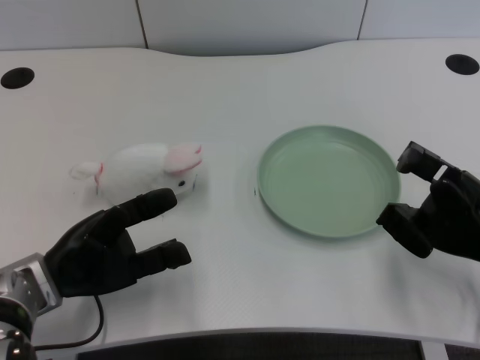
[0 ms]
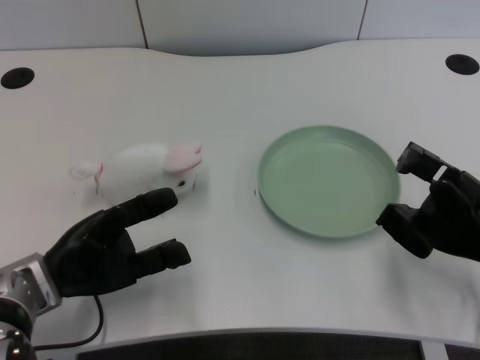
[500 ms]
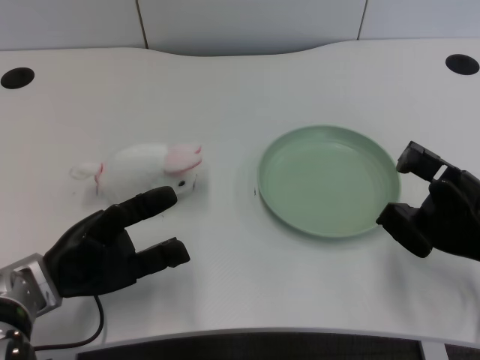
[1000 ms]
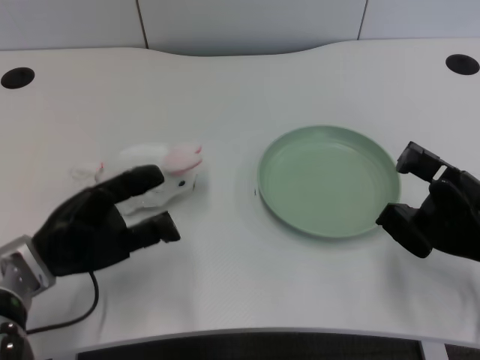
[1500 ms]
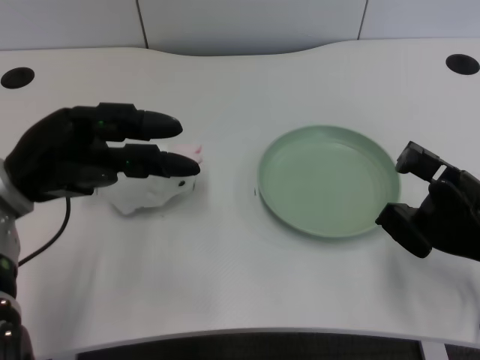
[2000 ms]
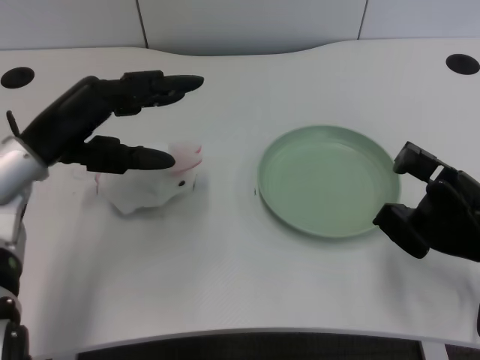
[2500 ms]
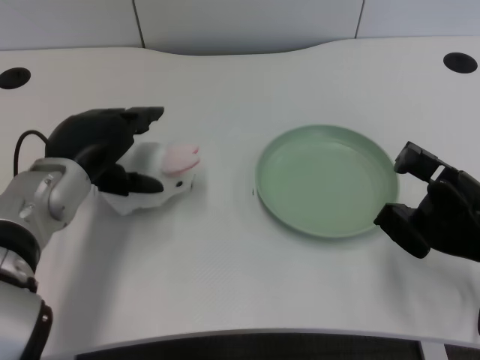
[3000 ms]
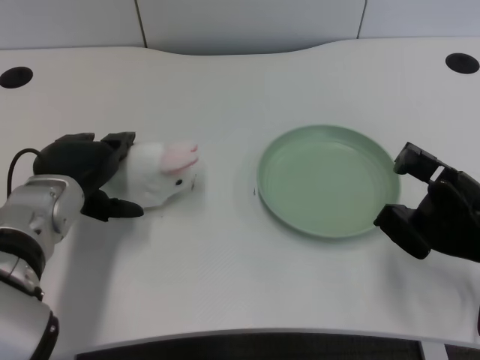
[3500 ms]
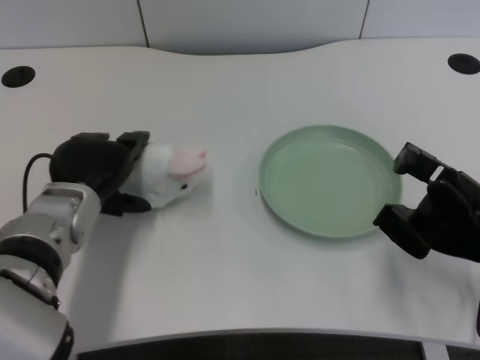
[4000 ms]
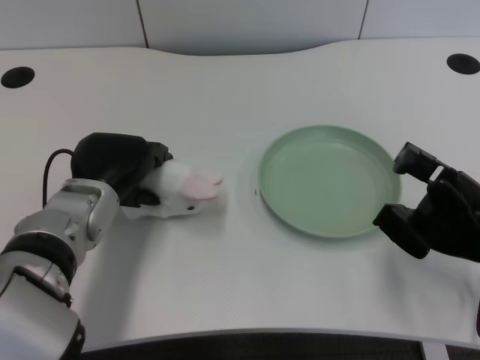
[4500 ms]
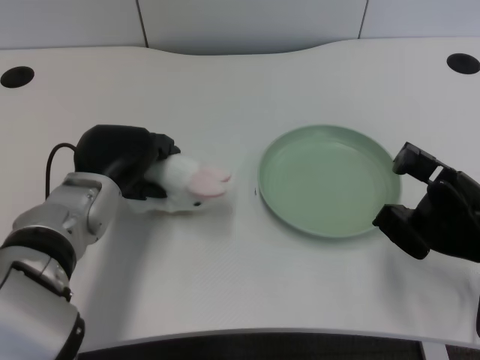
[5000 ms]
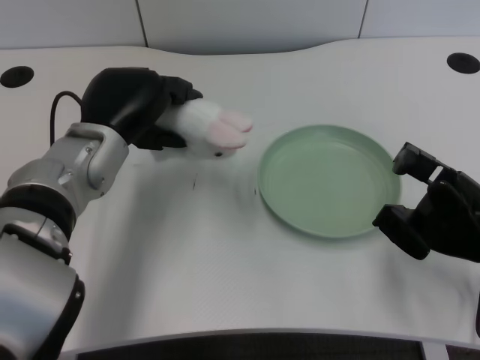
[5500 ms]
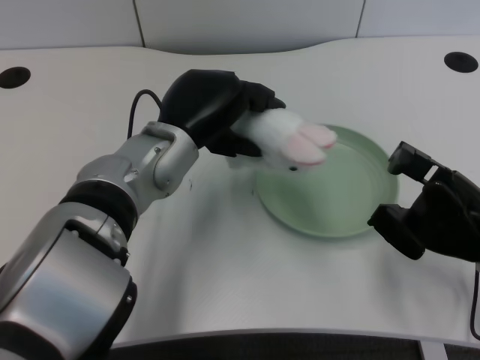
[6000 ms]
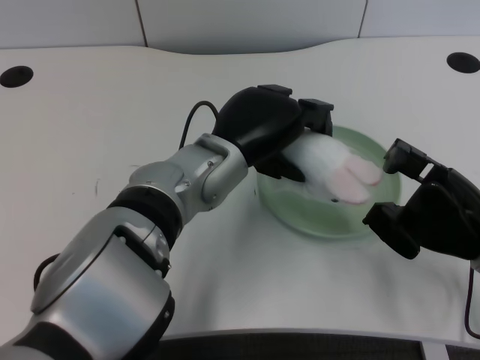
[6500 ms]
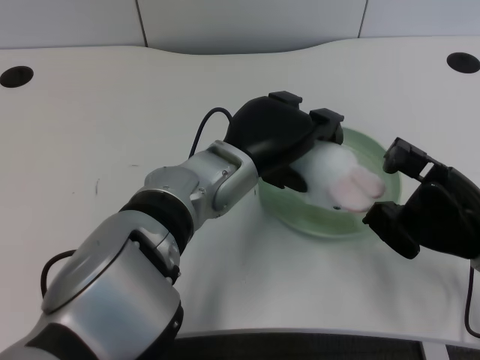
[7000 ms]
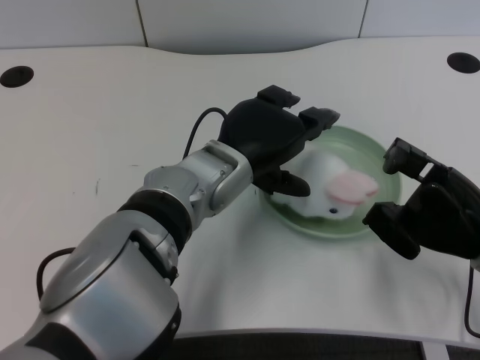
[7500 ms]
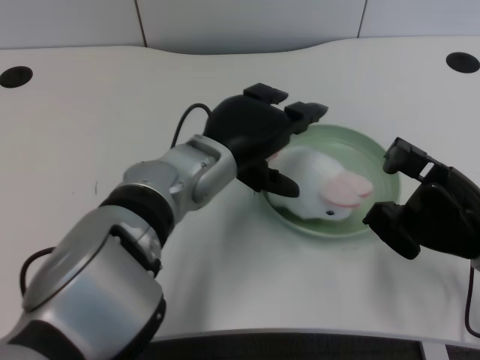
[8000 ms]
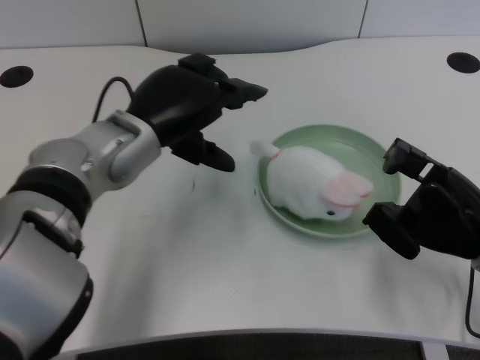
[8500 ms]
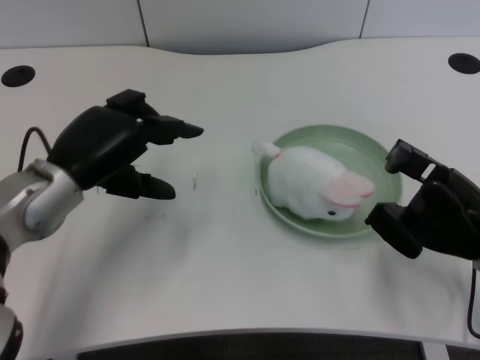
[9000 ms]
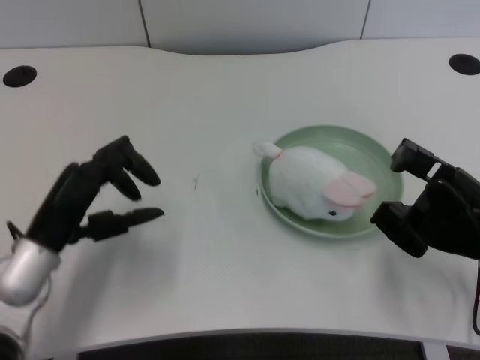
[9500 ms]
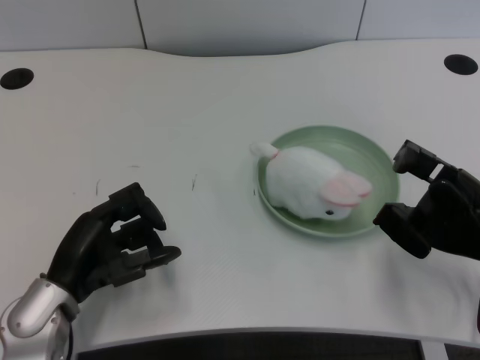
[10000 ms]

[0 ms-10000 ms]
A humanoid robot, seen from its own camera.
Task of the whole recording: pick up the rabbit doll from the table and place it on the plate.
Step, 1500 ms to 4500 ms: Grasp the rabbit doll with the left gripper.
Step, 5000 ms to 7000 ms: Place the rabbit doll into the plate with the left gripper.
2000 ms to 4000 ms: The left hand moves to the right, approximately 5 cm.
4000 ms to 6000 ms: The left hand heads to the right and upward, covering roughly 10 cm.
8000 ms to 10000 ms: The left hand goes some 20 cm to the left, downward and backward.

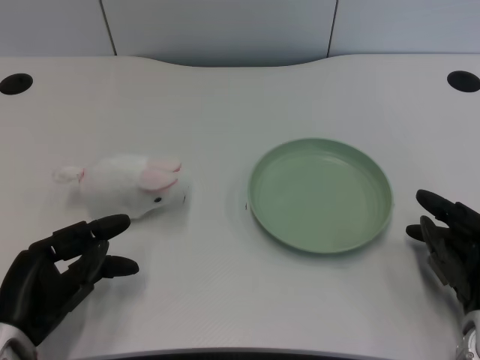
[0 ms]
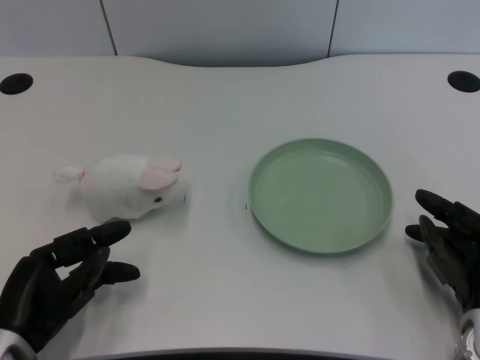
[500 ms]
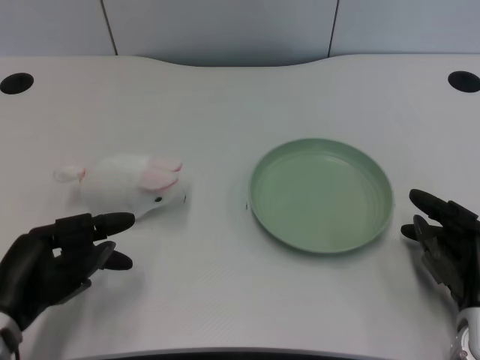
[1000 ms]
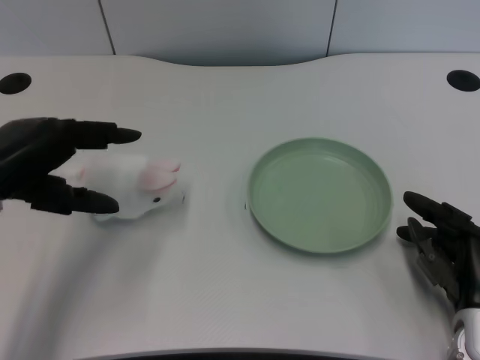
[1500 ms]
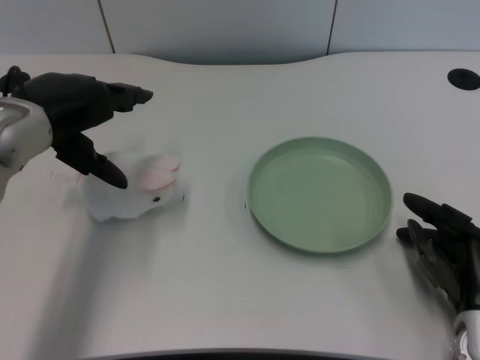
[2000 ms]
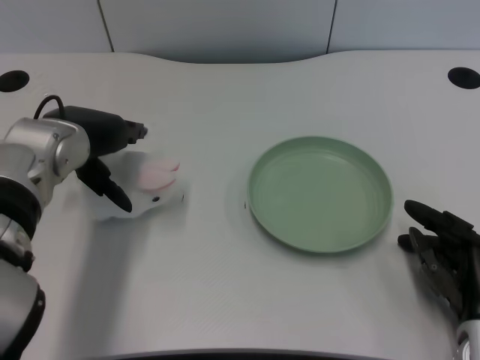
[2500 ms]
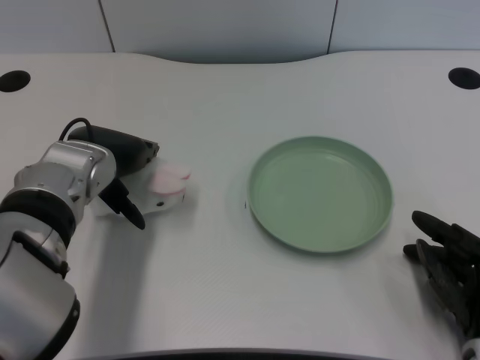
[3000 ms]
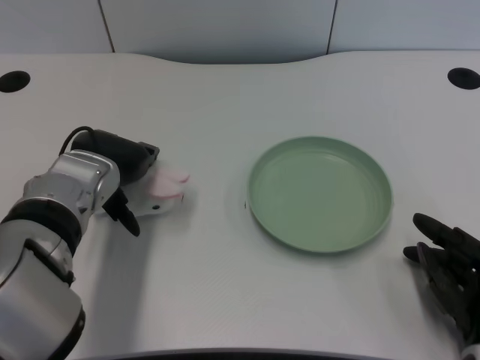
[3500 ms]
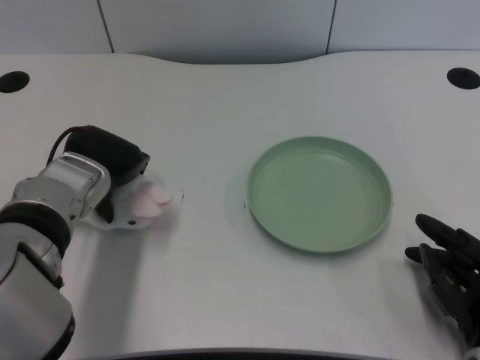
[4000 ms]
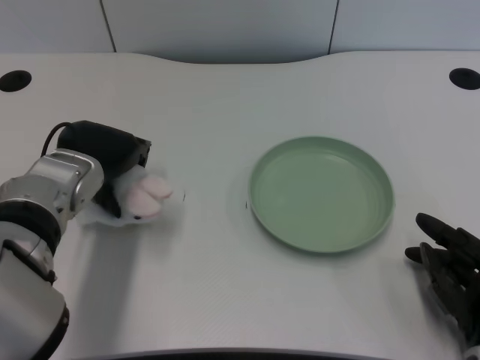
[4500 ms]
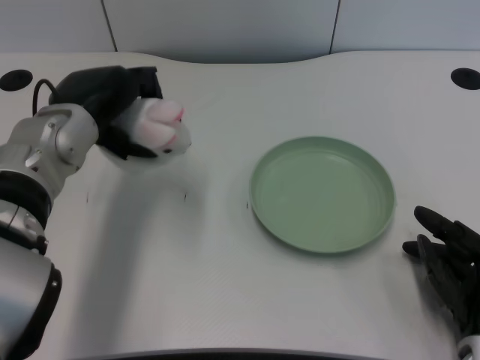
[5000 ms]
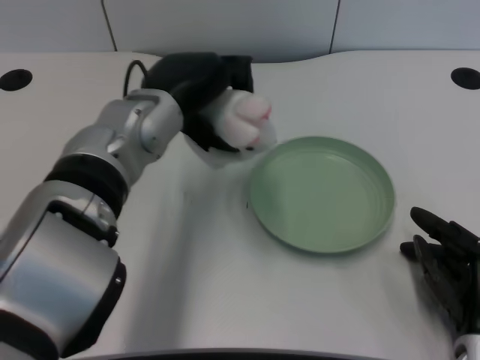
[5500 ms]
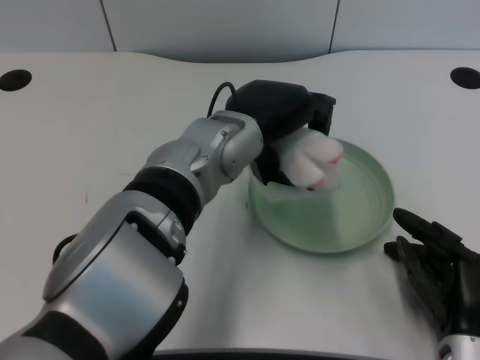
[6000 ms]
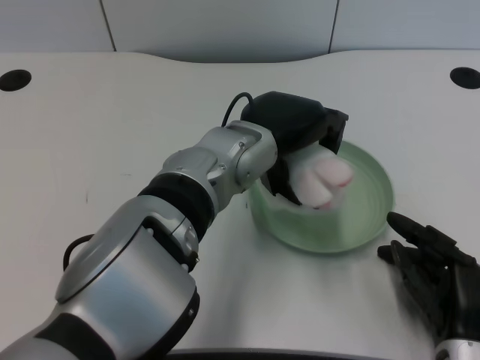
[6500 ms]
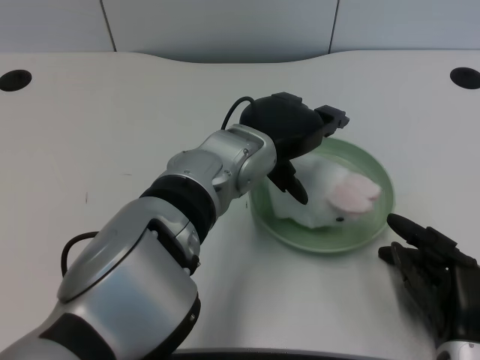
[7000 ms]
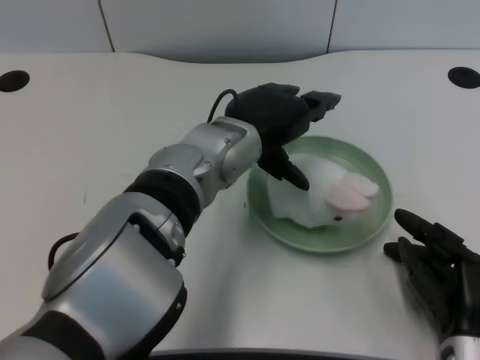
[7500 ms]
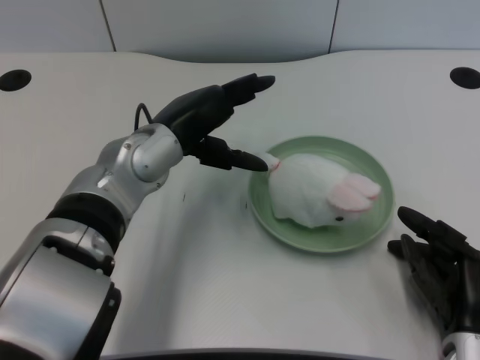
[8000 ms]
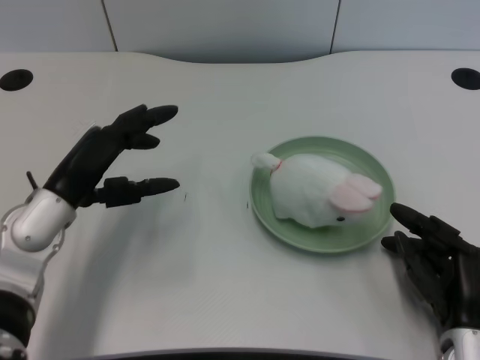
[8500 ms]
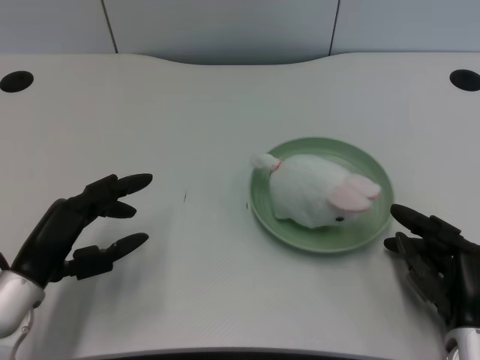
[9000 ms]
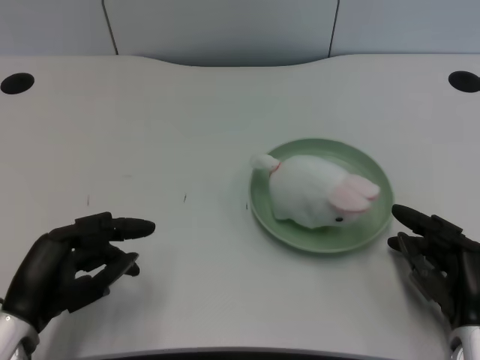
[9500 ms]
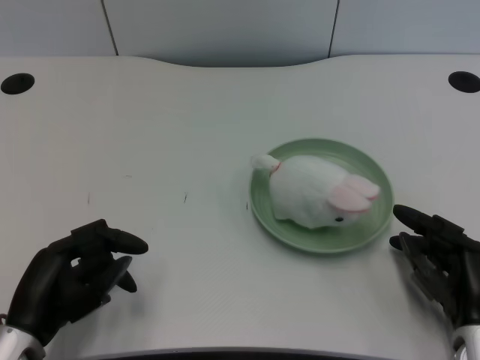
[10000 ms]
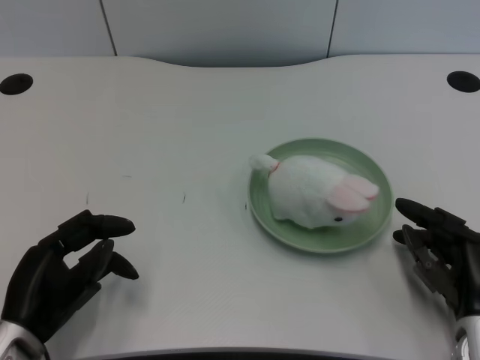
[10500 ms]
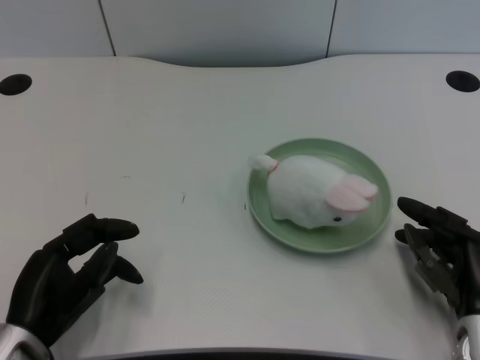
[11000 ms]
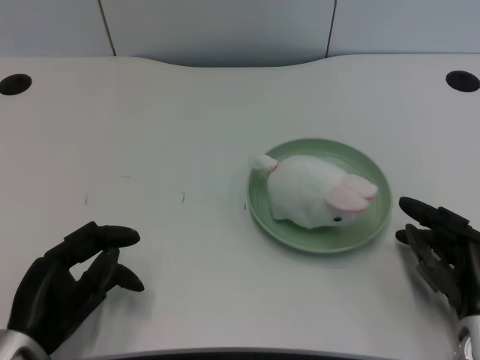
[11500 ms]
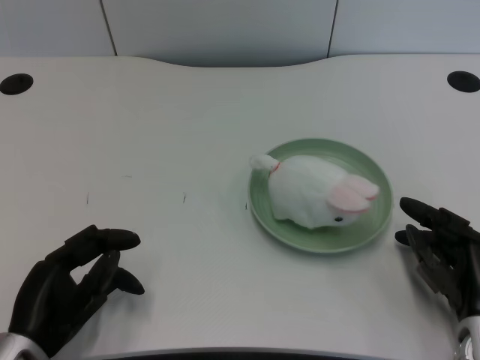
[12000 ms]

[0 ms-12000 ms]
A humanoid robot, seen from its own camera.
Task of the whole recording: pick up the rabbit doll from the table and place it on the plate.
Step, 1000 ms to 4500 ms: Grasp the rabbit doll with the left gripper.
Step, 5000 ms to 7000 ms: Place the rabbit doll into the plate with the left gripper.
2000 ms to 4000 ms: The left hand is displaced downward by about 10 cm.
4000 ms to 6000 ms: The left hand travels to the right by approximately 15 cm.
6000 ms to 8000 ms: The left hand goes approximately 10 cm to the left.
8000 ms to 10000 ms: The left hand shifts approximately 25 cm backward, to the left and downward.
10000 ms to 12000 ms: There are only small adjustments of the hands.

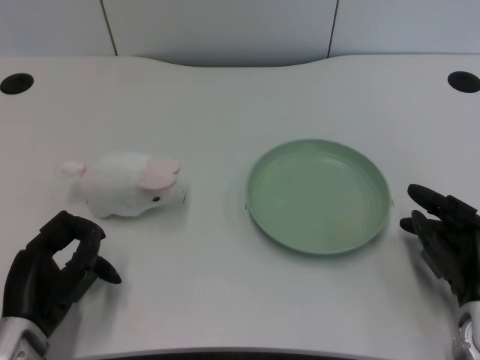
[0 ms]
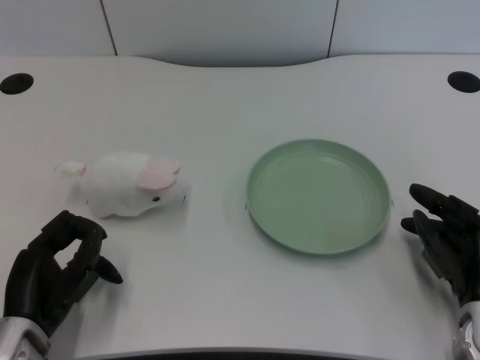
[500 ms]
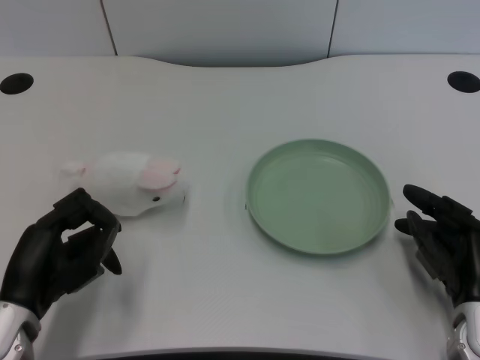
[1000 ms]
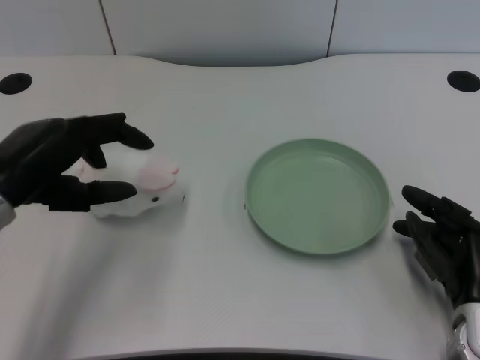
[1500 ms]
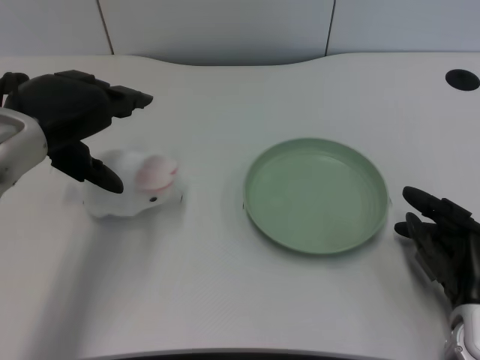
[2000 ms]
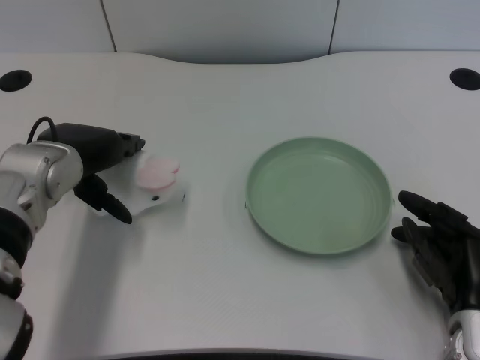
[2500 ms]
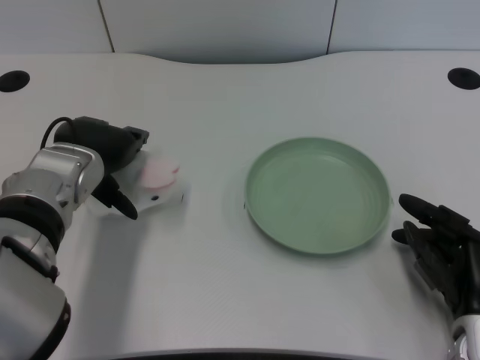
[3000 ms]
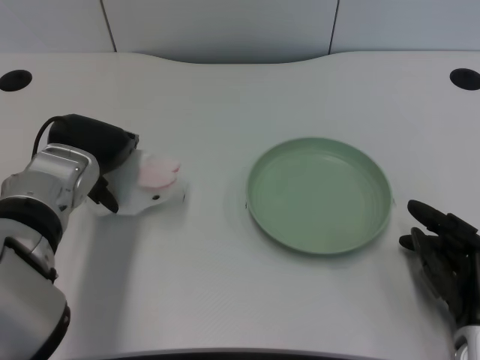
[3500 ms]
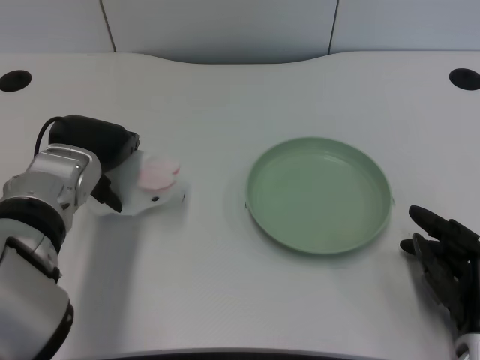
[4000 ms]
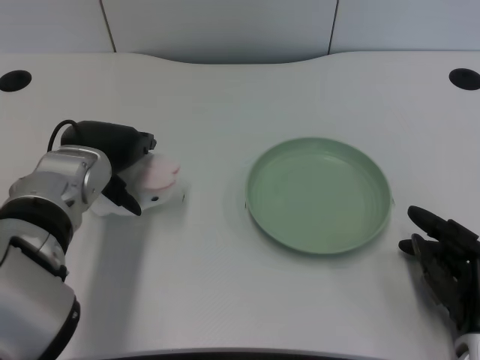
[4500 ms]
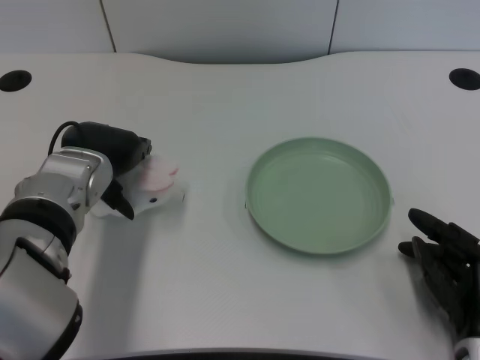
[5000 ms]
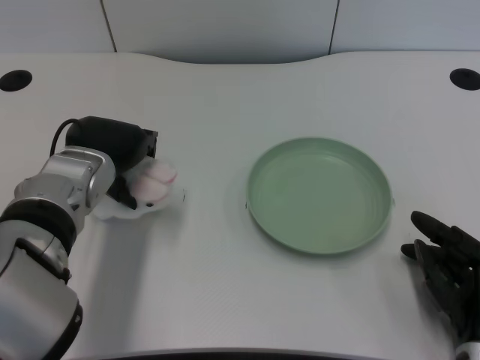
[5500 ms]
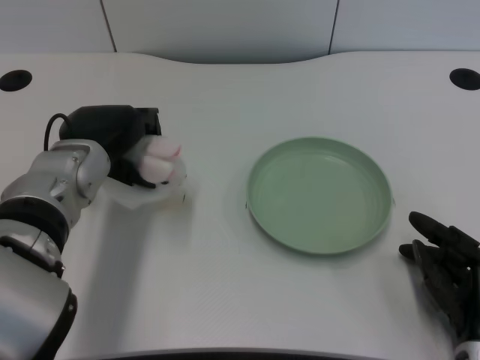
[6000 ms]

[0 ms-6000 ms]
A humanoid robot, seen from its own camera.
Task of the whole recording: pick up the rabbit doll from the table and place it on the plate.
Step, 1000 ms to 5500 ms: Grasp the rabbit doll with the left gripper.
2000 ms to 4000 ms: The left hand moves downward, approximately 10 cm.
